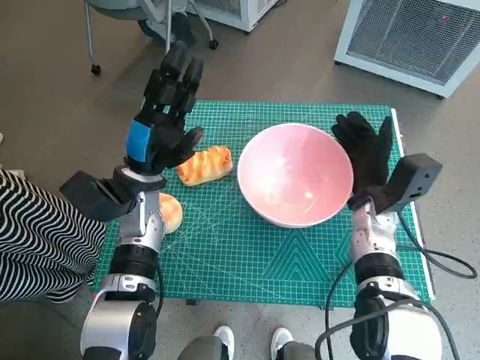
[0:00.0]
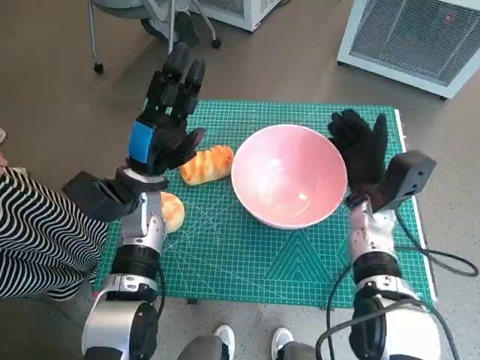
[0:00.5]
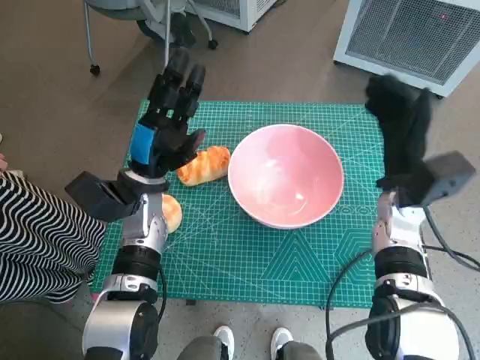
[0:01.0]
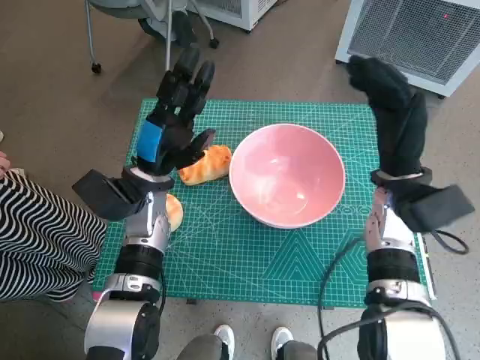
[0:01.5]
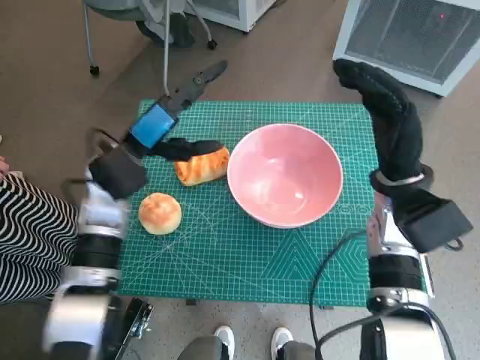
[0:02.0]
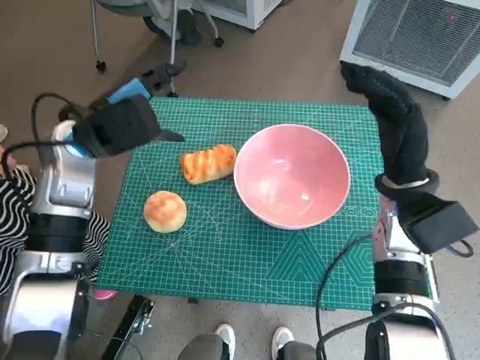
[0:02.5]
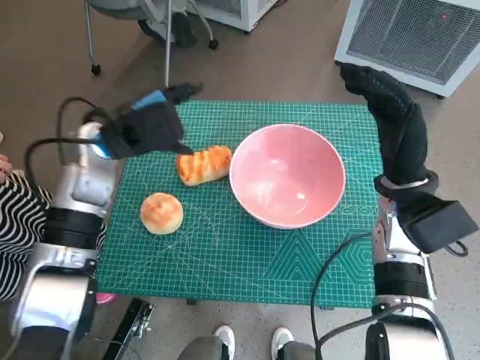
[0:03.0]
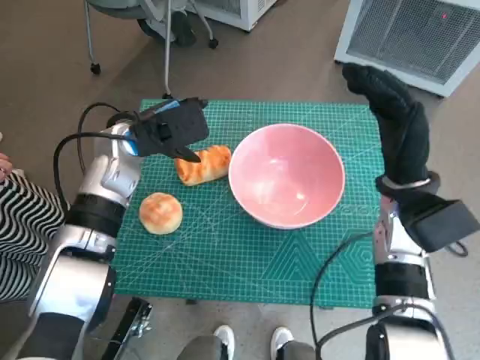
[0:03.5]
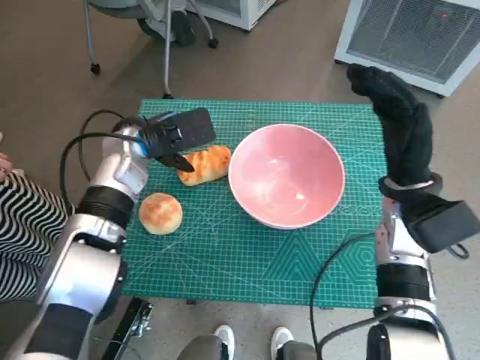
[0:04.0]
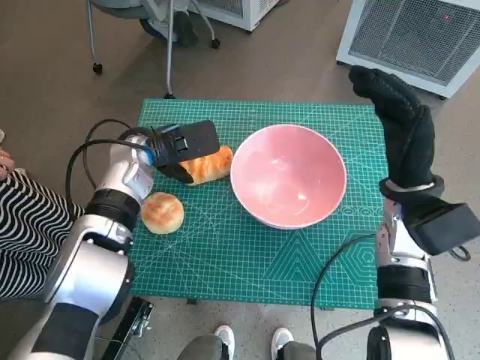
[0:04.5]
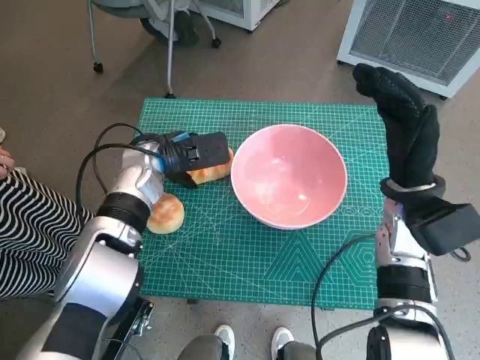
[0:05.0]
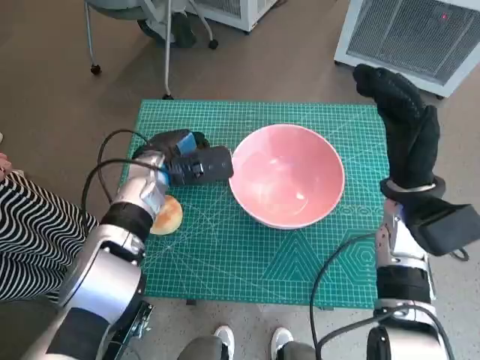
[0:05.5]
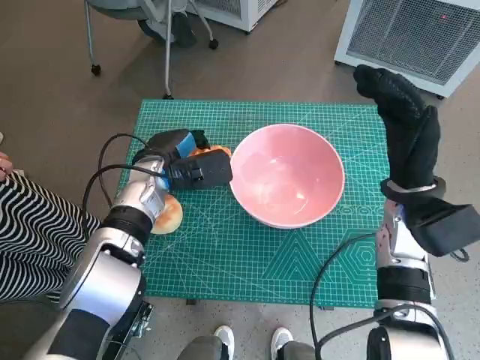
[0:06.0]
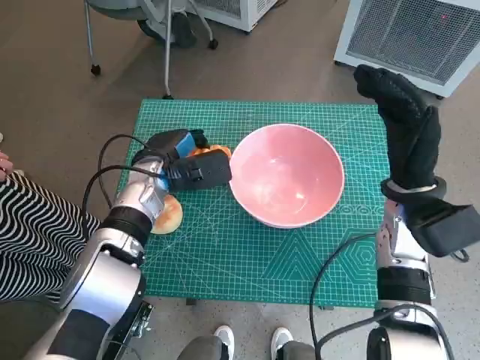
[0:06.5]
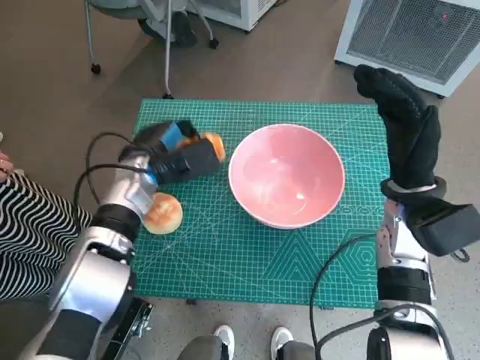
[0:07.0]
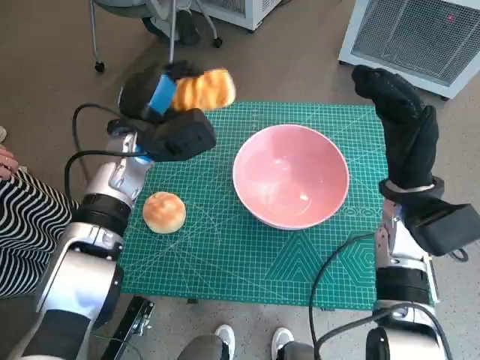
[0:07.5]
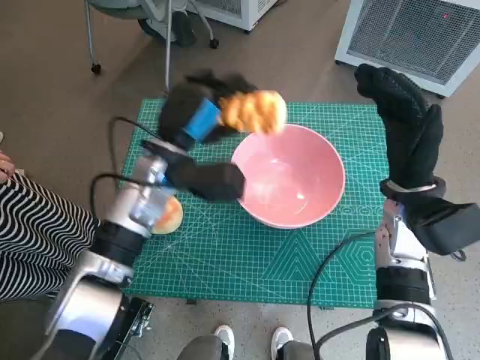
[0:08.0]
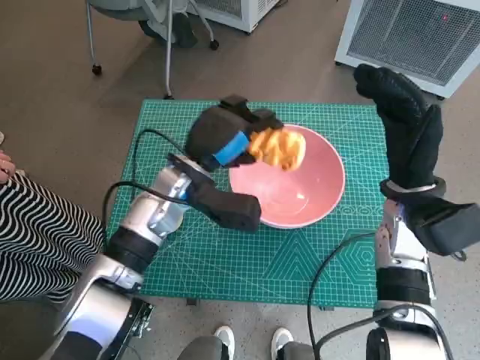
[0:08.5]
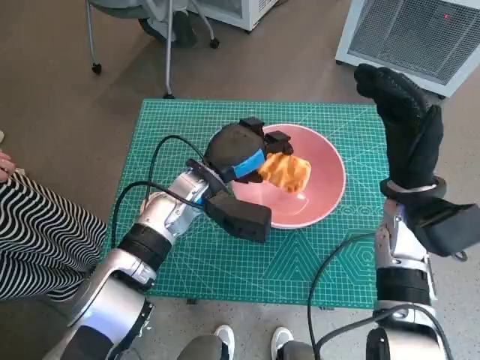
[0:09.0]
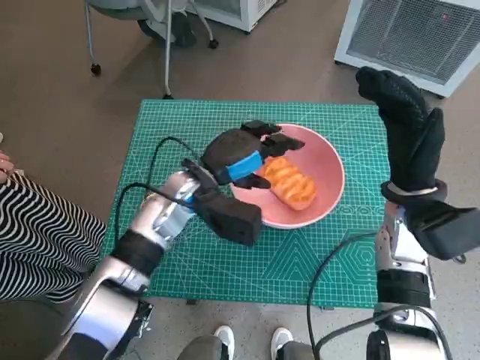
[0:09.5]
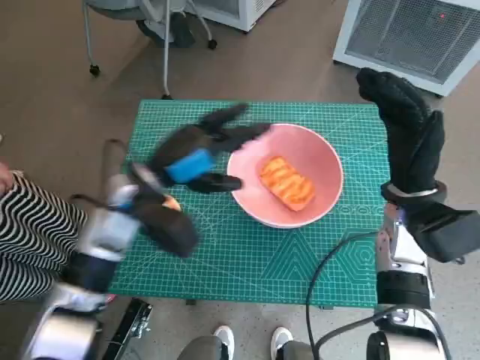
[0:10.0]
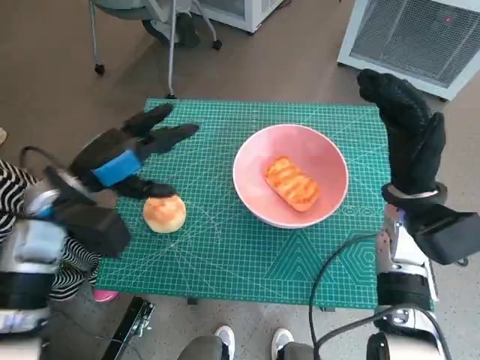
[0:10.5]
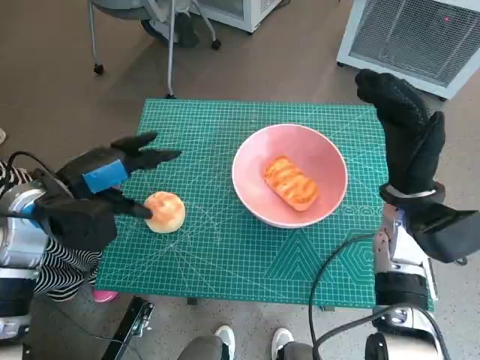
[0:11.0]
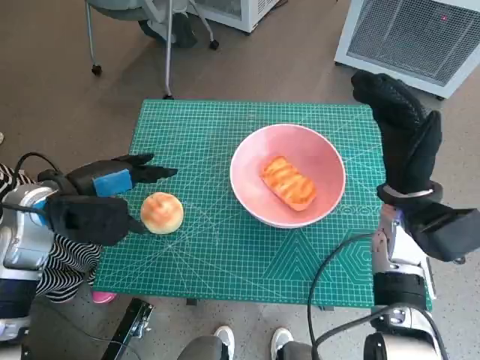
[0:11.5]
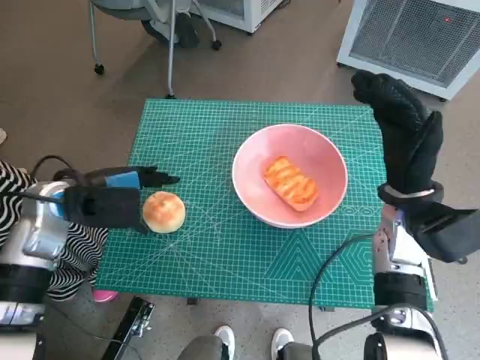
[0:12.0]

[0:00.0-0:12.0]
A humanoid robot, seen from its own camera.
Task of the whole recording: Push the bowl into the center of the table and put the bread into the bowl.
Step, 0:01.0 to 0:05.5: Grasp the long bread with left hand.
Step, 0:06.0 to 0:09.5: Place the long bread in pink bowl with left hand.
0:00.0 to 0:02.0: The right hand travels upward by approximately 10 cm.
0:04.0 to 0:06.0: The left hand is displaced downward by approximately 5 cm.
0:06.0 to 0:08.0: The left hand is displaced upward by some 5 cm.
0:10.0 to 0:12.0: The left hand goes about 10 cm to the left.

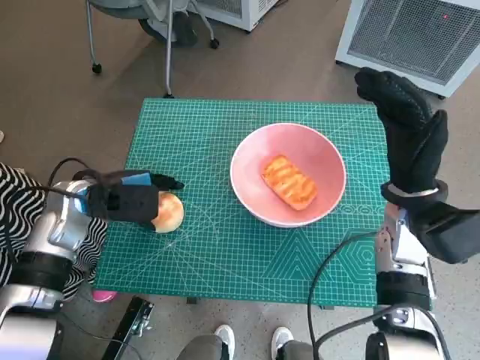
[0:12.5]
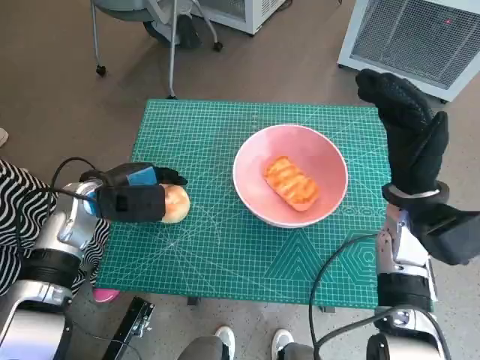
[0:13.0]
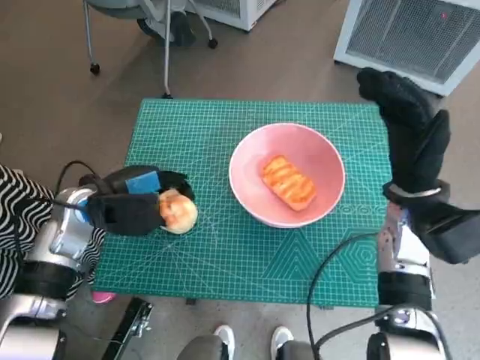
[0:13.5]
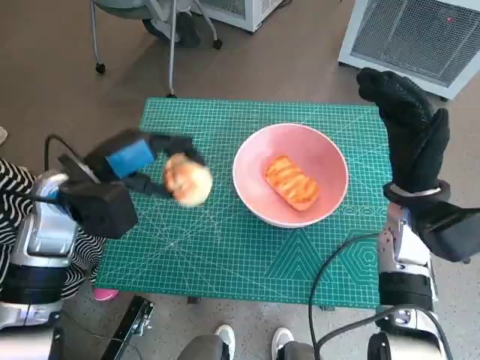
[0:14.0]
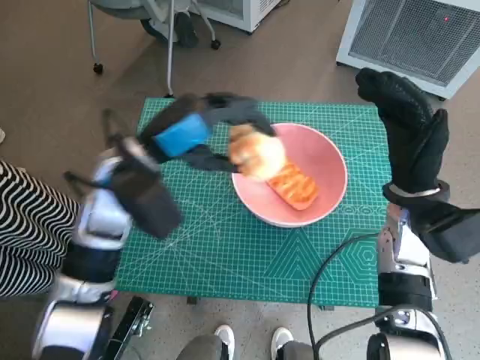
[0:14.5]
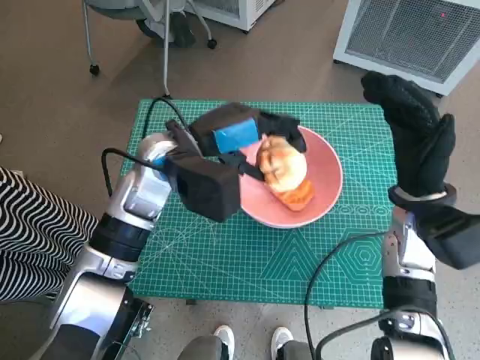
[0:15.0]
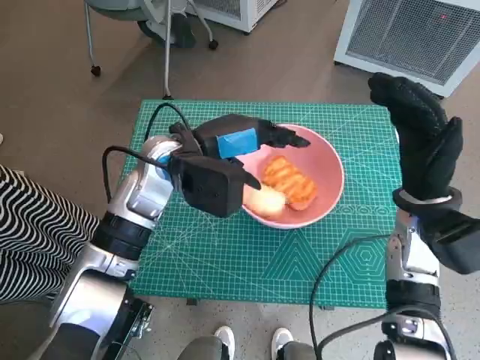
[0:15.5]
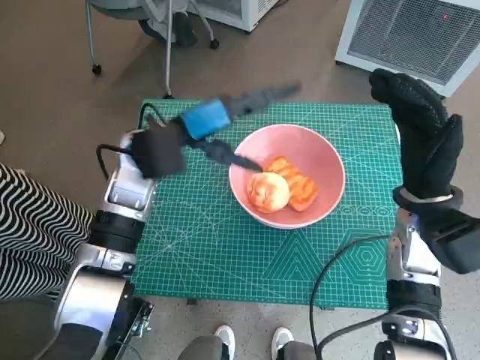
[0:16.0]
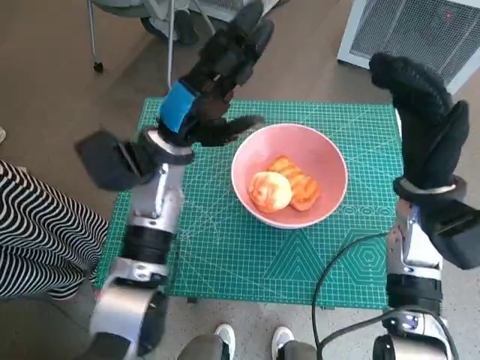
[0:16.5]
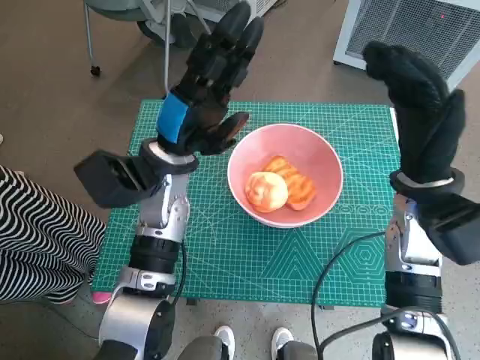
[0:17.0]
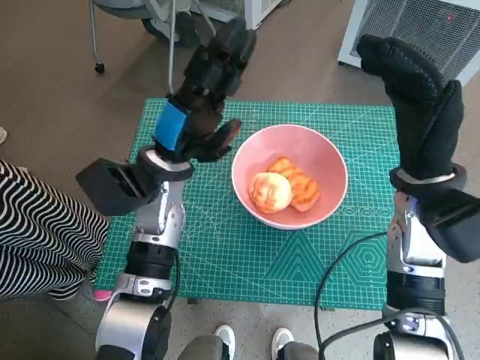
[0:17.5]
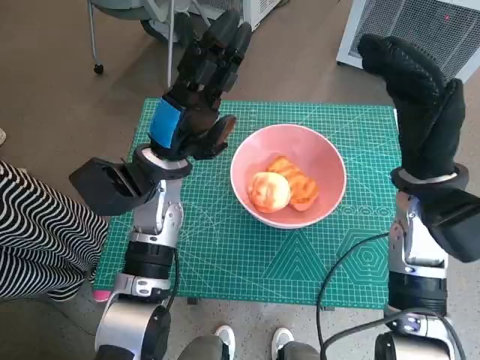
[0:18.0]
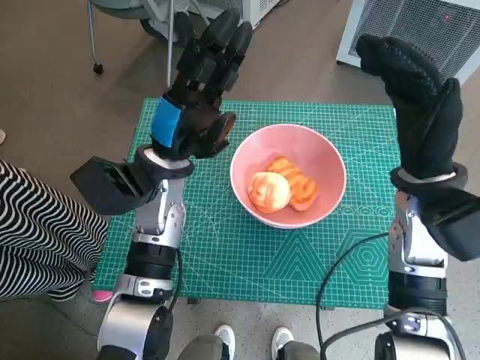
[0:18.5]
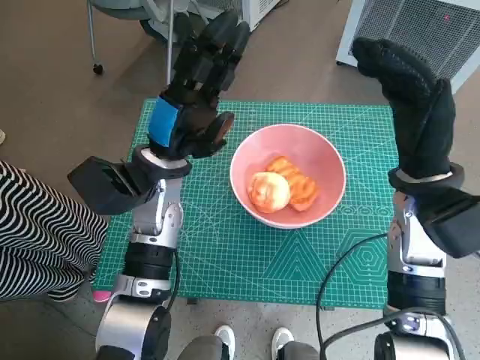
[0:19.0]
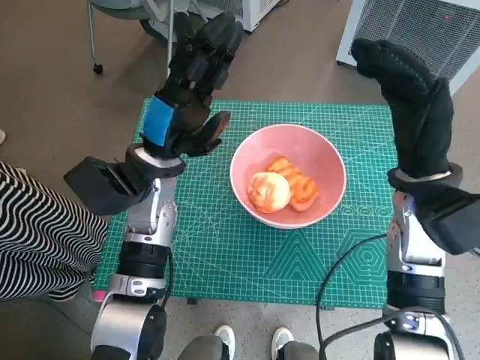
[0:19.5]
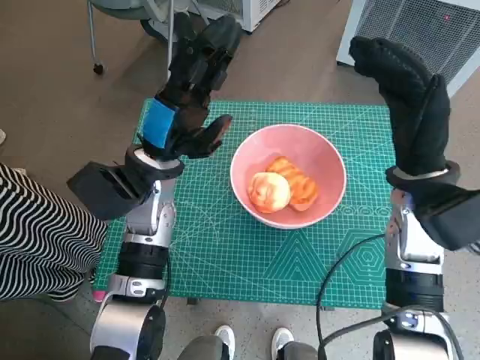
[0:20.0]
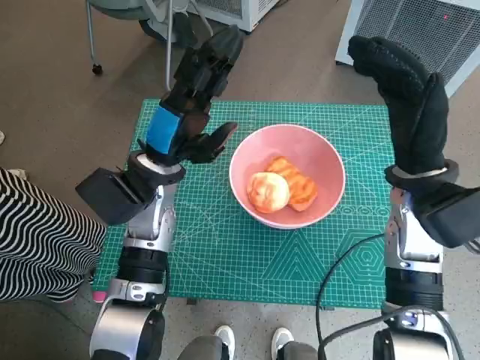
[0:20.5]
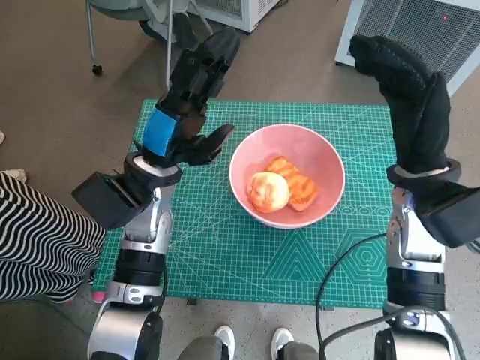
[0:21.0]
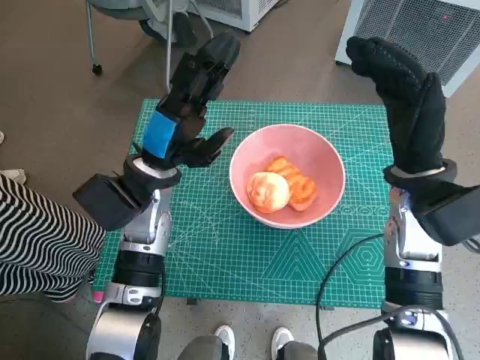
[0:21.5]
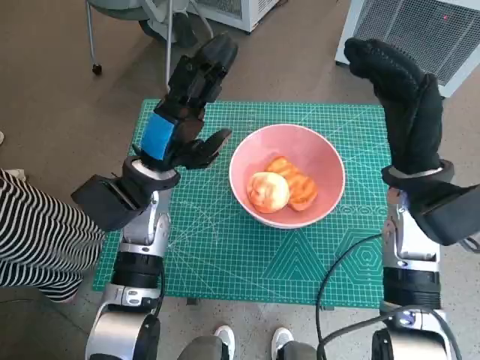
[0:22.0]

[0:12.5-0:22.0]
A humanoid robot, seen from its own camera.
Task of the whole recording: Push the bowl into the center of the table and put the bread into the bowl.
Step, 0:13.5 to 0:16.0: Place the round bread in pink bowl with left hand.
0:12.5 to 0:14.5: The left hand heads to the right and upward, covering about 10 cm.
0:14.5 to 0:16.5: The left hand shifts by about 5 cm.
0:18.0 to 0:22.0: The hands make only small movements.

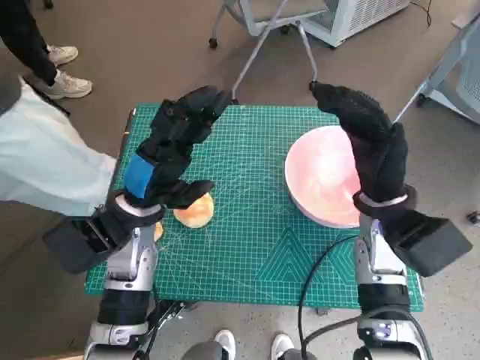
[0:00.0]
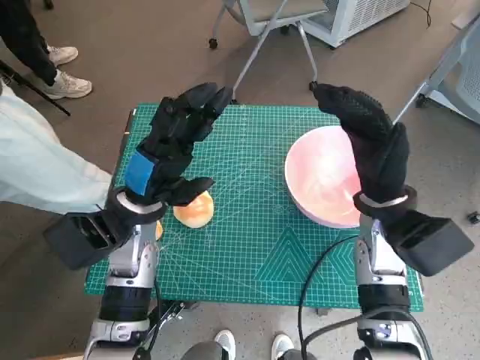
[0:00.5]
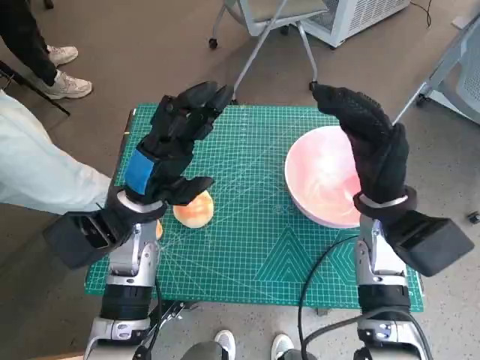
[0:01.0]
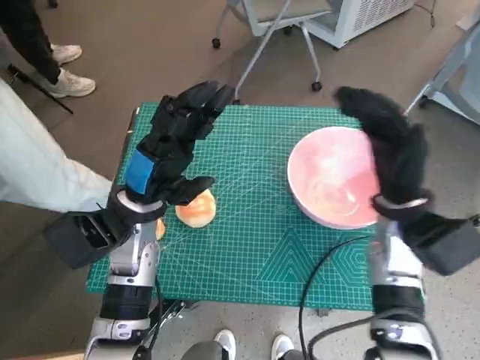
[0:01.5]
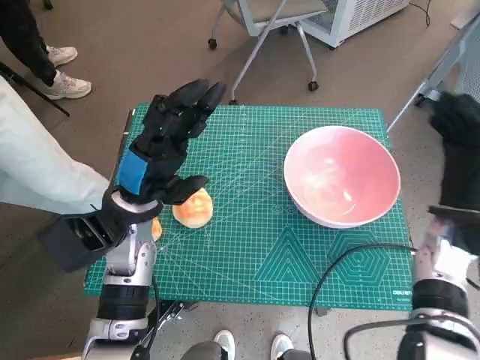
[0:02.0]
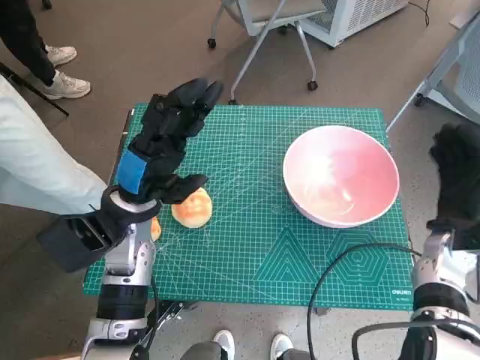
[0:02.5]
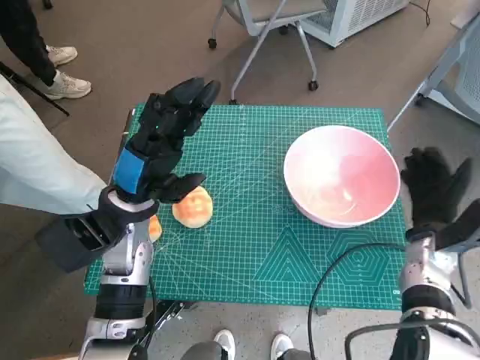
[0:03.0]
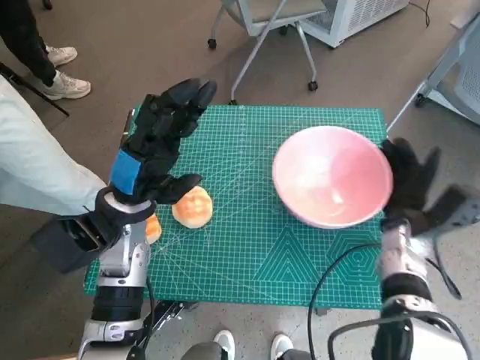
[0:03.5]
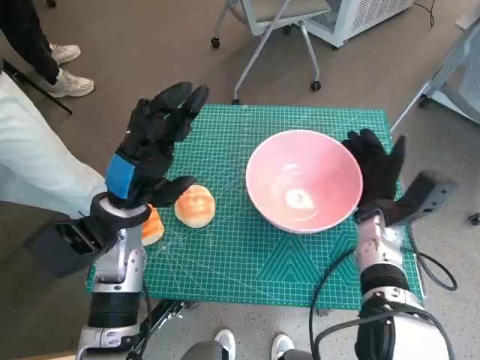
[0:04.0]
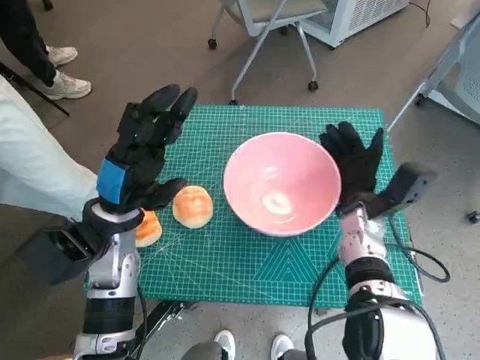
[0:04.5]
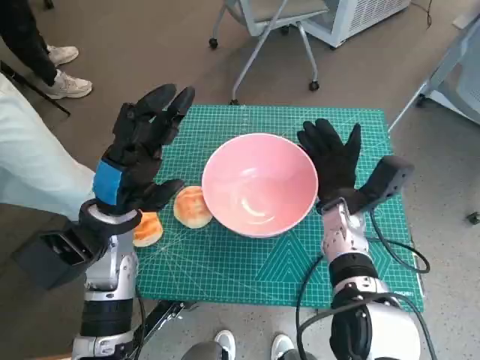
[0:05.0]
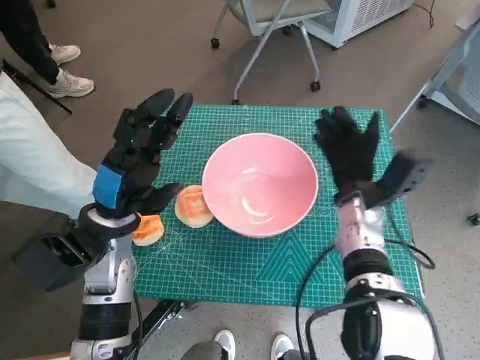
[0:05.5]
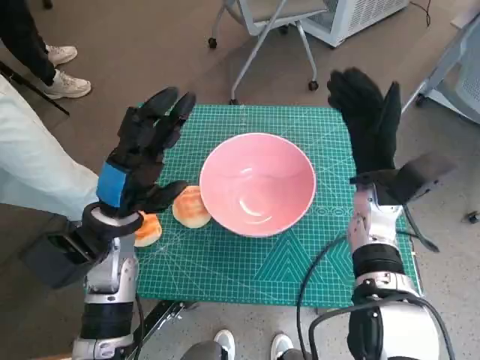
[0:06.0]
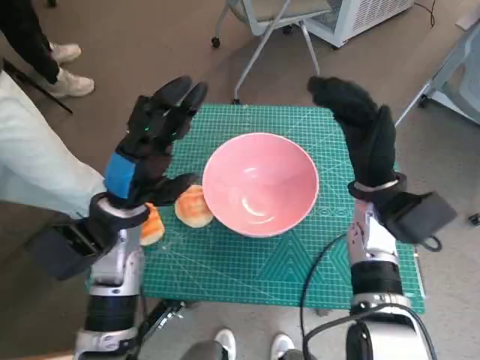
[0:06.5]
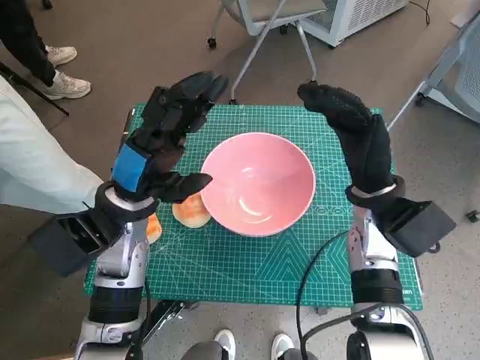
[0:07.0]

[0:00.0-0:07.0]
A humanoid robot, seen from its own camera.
Task of the whole recording: Push the bowl into the center of the table and put the bread into the bowl.
Step, 0:00.0 to 0:06.5: Move the pink bowl to the center of table with right hand.
0:02.0 to 0:03.5: The right hand heads downward, covering roughly 5 cm.
0:03.5 to 0:05.0: The right hand goes about 10 cm to the left.
0:05.0 to 0:07.0: The right hand heads upward, covering roughly 5 cm.
